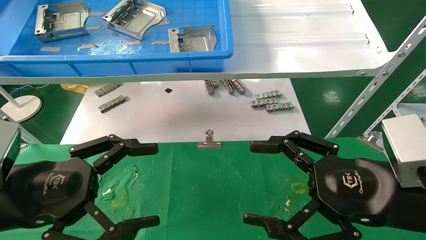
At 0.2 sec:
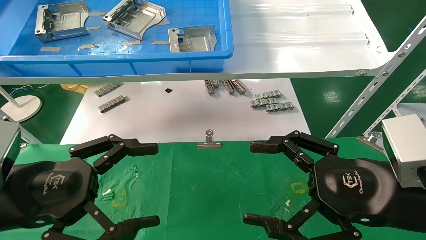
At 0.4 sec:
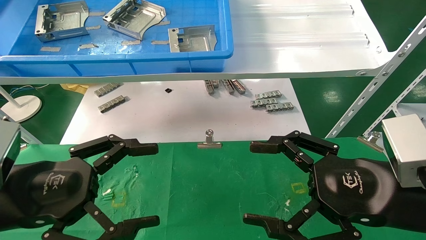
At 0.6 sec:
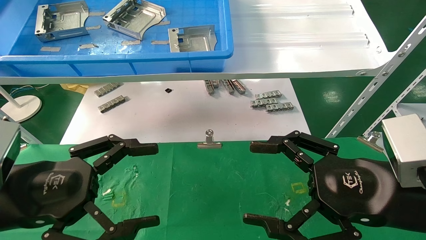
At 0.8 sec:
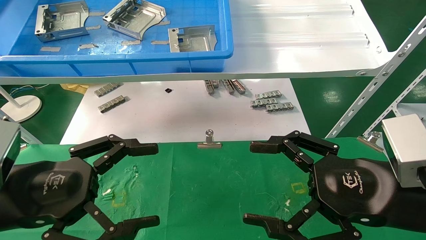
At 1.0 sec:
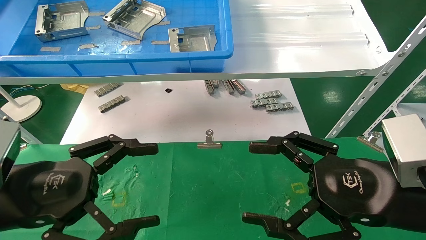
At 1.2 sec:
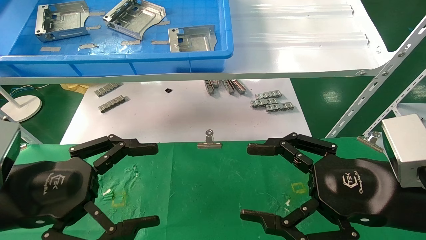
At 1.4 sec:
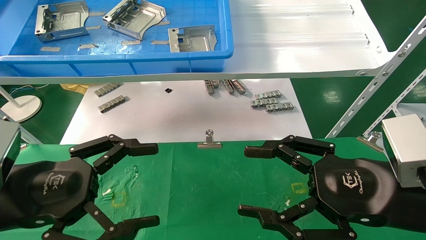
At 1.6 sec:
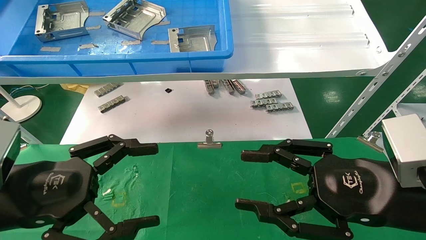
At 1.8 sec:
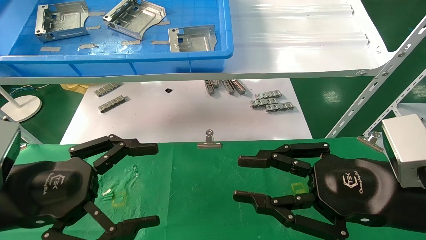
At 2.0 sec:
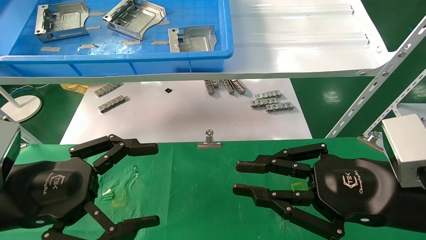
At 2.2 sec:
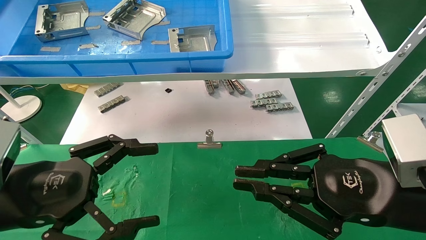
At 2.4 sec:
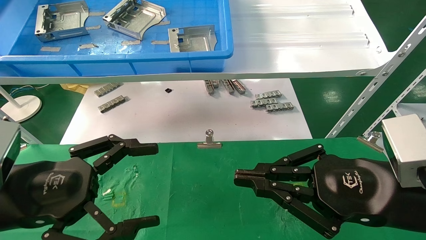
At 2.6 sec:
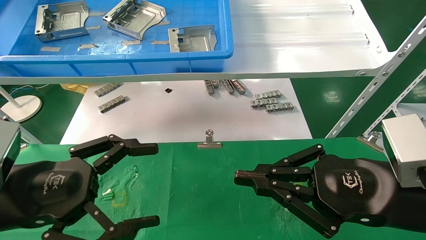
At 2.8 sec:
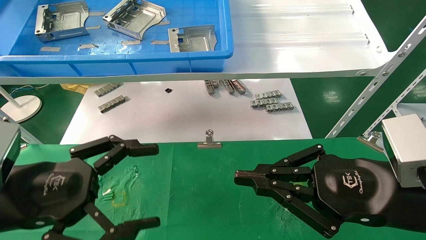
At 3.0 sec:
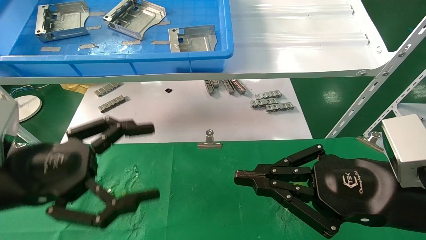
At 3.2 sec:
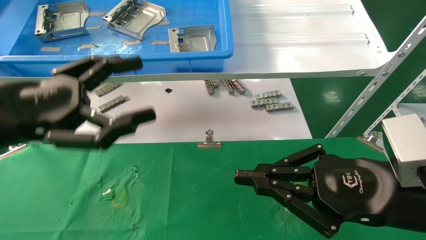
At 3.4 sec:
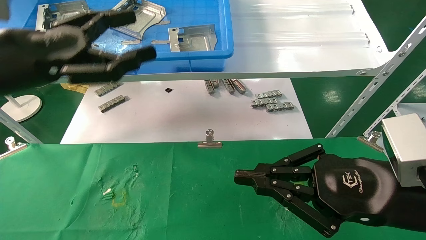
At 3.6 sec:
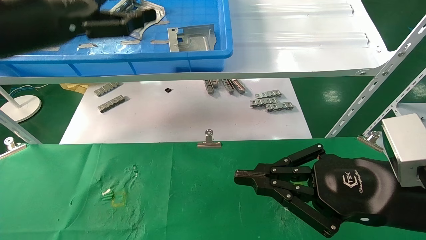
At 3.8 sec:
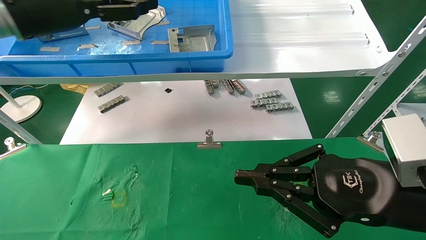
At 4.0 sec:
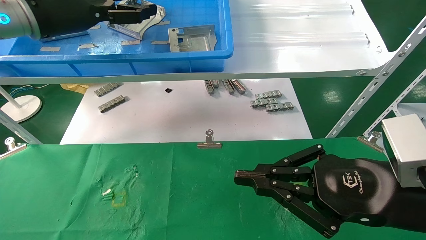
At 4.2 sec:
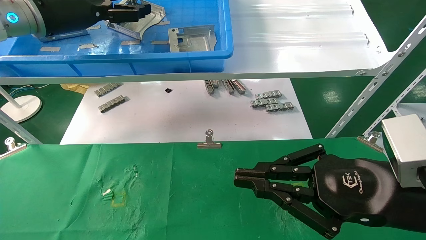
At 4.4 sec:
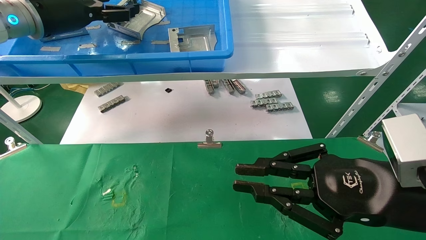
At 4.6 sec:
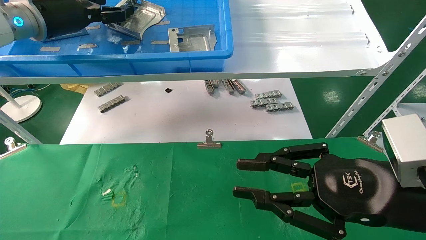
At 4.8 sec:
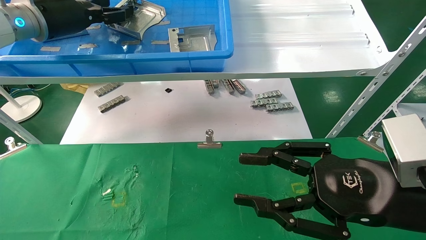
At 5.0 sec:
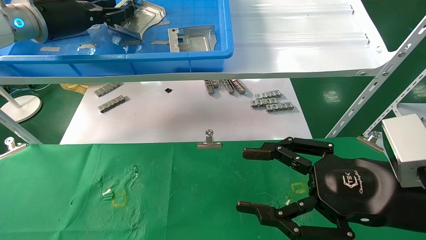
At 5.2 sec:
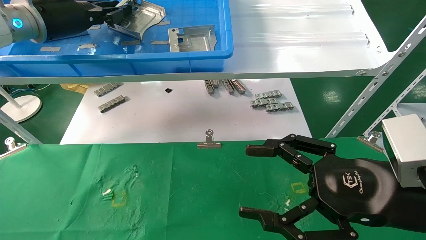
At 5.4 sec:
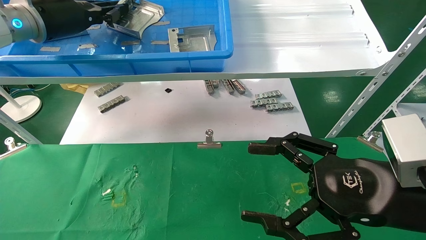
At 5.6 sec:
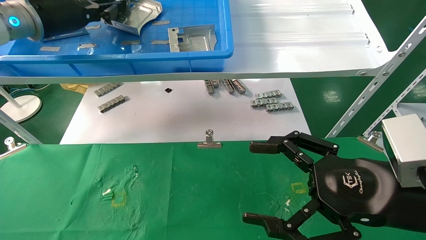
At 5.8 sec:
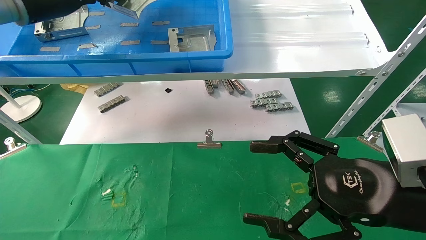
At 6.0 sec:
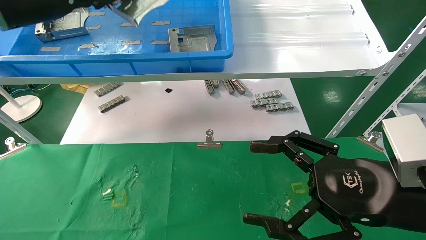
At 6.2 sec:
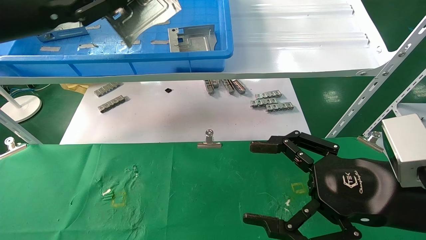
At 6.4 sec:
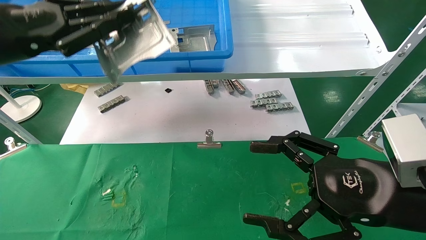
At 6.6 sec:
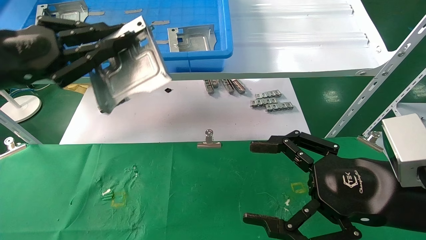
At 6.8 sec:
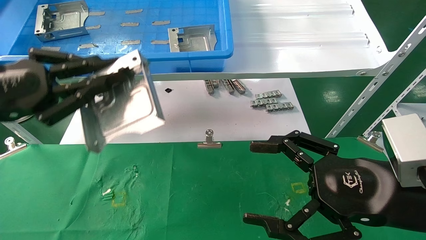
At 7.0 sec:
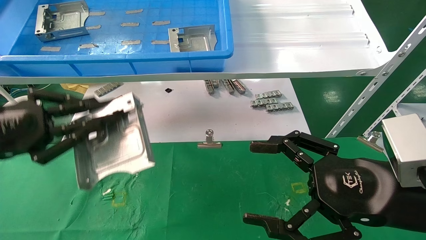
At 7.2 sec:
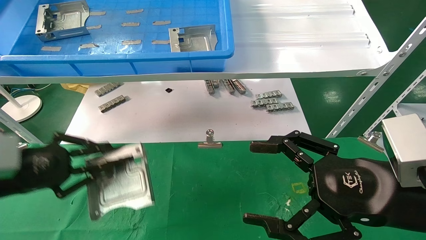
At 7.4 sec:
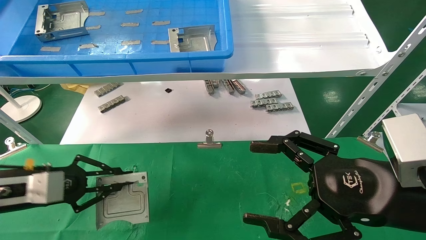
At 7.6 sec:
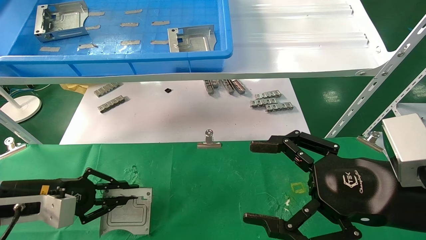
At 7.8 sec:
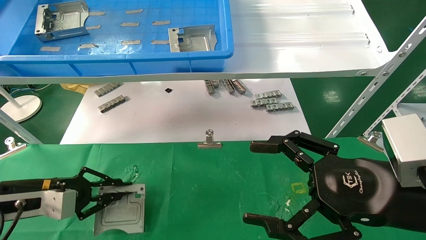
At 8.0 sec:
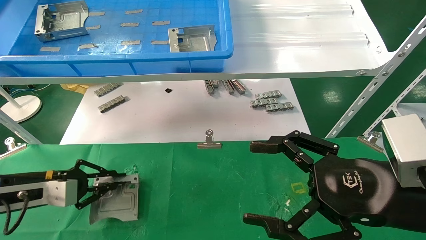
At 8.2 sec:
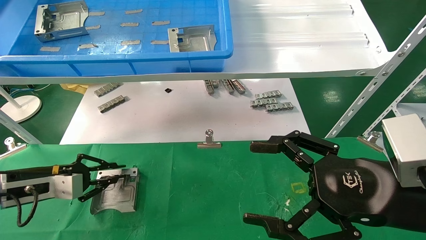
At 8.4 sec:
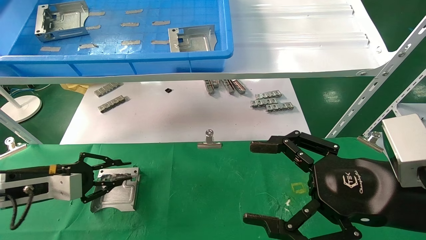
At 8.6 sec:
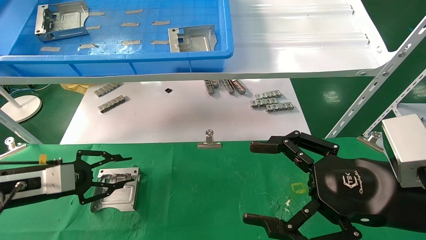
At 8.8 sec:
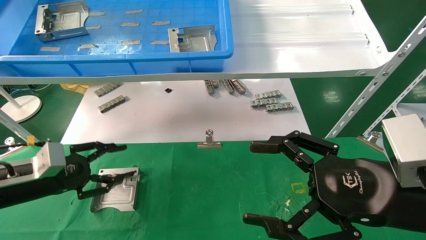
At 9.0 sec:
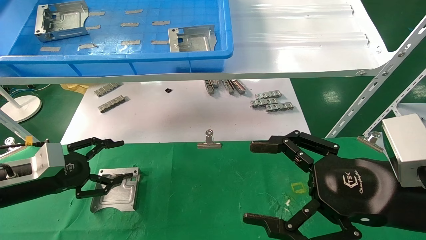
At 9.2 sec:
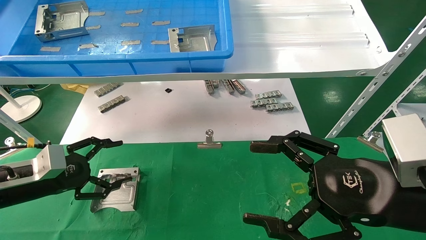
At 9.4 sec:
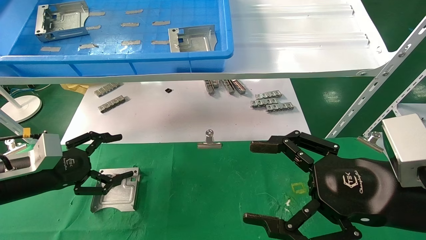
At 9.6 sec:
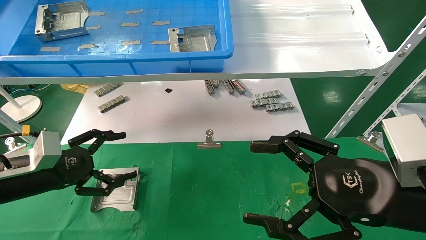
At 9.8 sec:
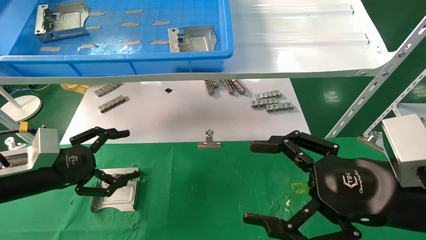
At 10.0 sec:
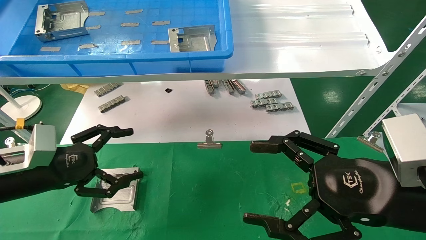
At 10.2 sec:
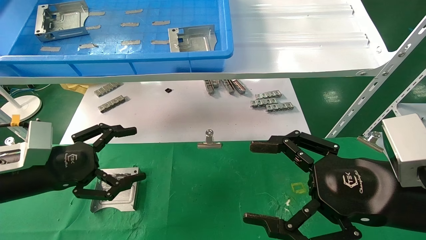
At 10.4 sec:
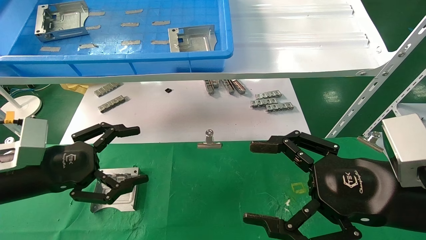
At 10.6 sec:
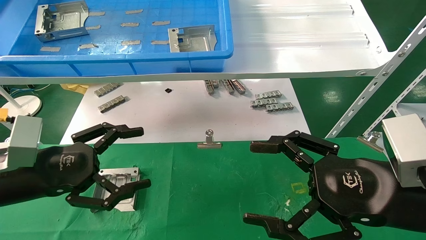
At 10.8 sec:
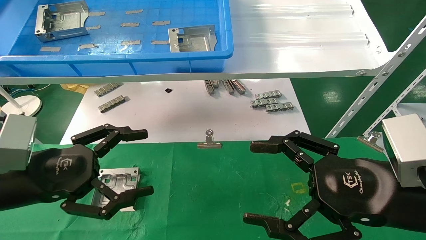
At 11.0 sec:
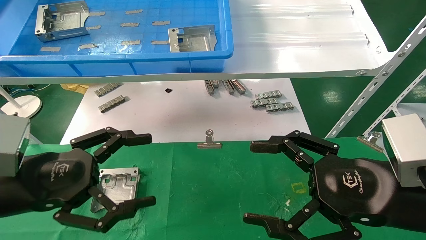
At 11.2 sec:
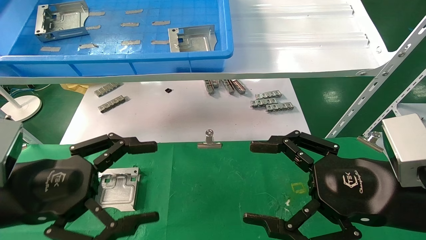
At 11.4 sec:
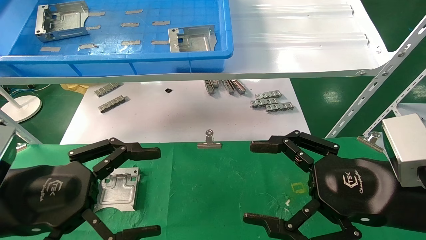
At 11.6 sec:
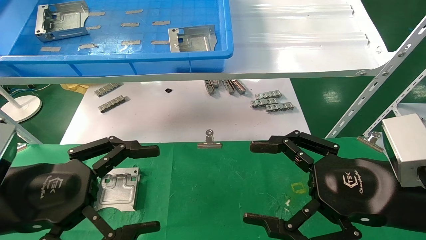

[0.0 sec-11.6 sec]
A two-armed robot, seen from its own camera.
Task of the whole recording: use the mechanical arm to pick up the parts and place them on the table.
Step, 3.0 sec to 5.4 sec: Pick up the hard drive bracket from the feeding area.
Step, 5.6 sec to 8.6 sec: Place the hard drive bracket into the box.
0.0 sec to 1.4 sec: Both grippers stay about where they are.
1.4 sec to 2.8 sec: The right gripper closes its fingers.
2.8 sec to 4.4 sec: The left gripper heads forward and upward, covering approximately 30 cm.
4.4 sec to 5.8 sec: The left gripper closes up. Meanwhile the right gripper opens its fingers.
5.8 sec to 7.2 sec: The left gripper heads downward and backward, covering roughly 25 cm.
7.2 sec to 8.8 sec: The left gripper shifts about 5 cm downward, and opens up.
8.8 sec to 10.2 sec: The left gripper ends up approximately 10 cm from where it was, and opens its fingers.
10.2 sec to 11.6 sec: The left gripper shifts about 10 cm backward and to the right.
